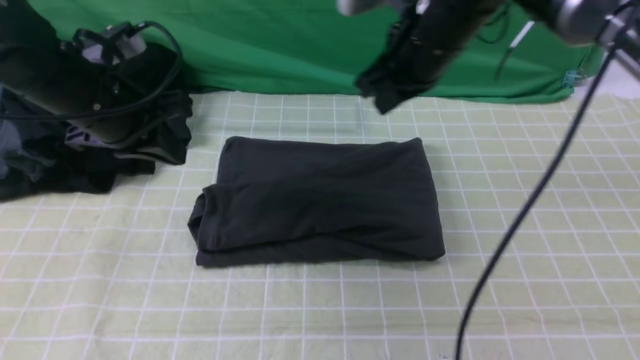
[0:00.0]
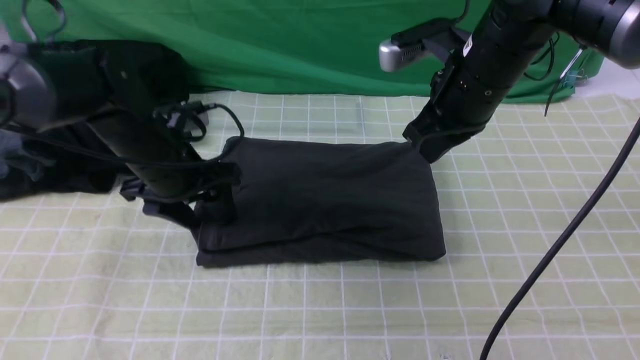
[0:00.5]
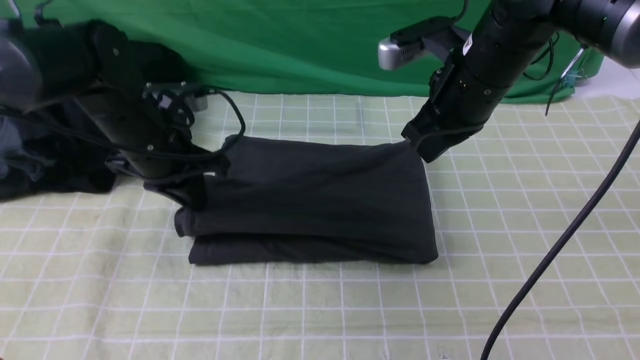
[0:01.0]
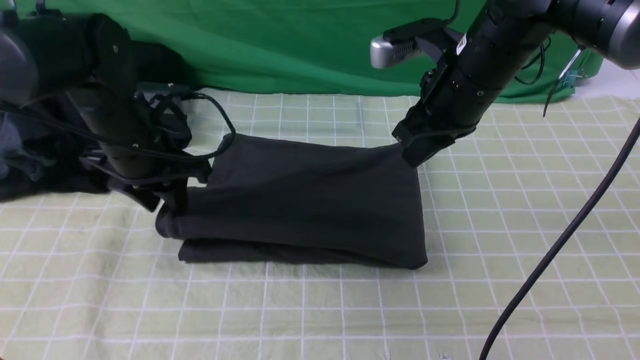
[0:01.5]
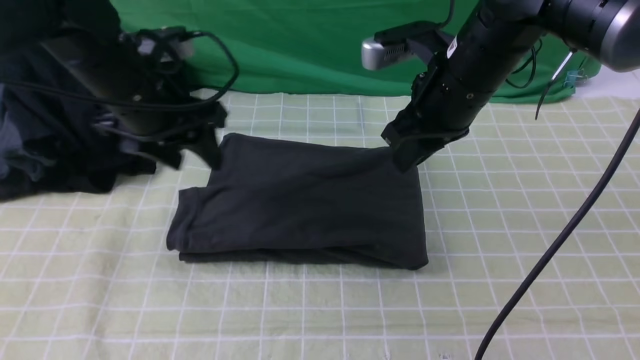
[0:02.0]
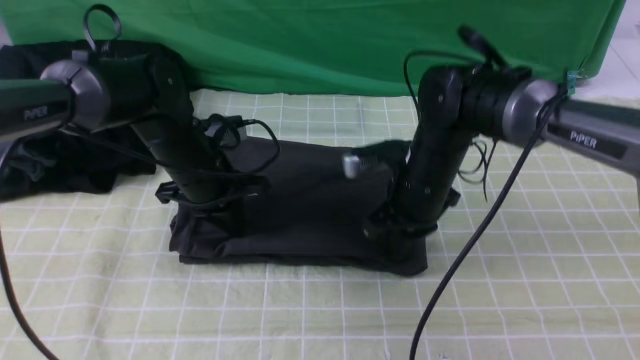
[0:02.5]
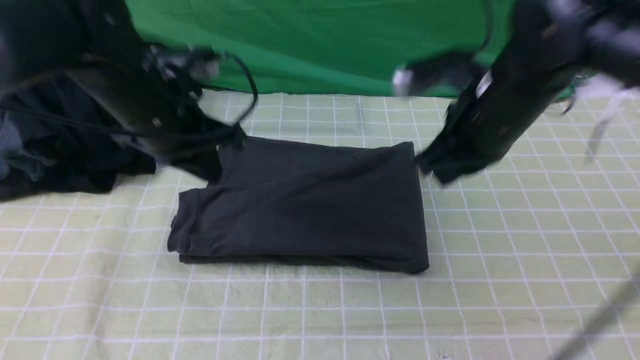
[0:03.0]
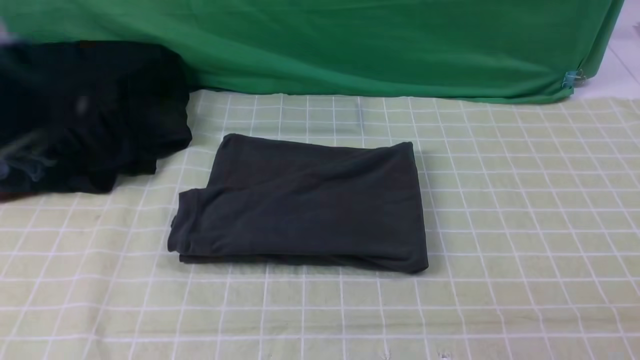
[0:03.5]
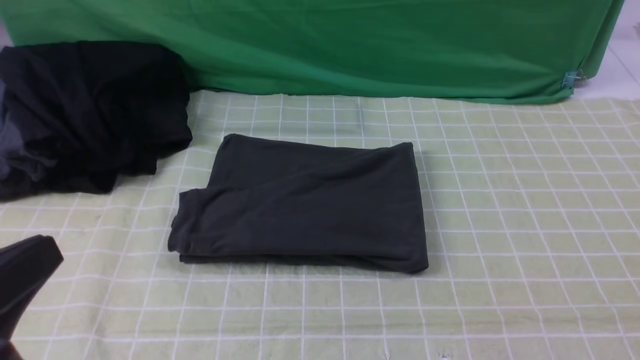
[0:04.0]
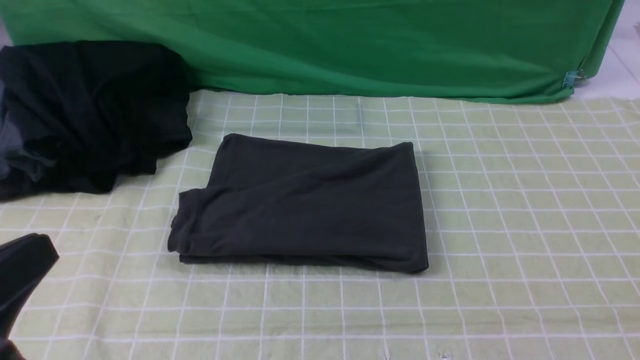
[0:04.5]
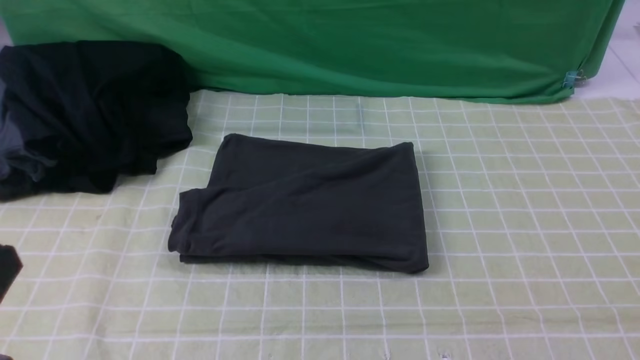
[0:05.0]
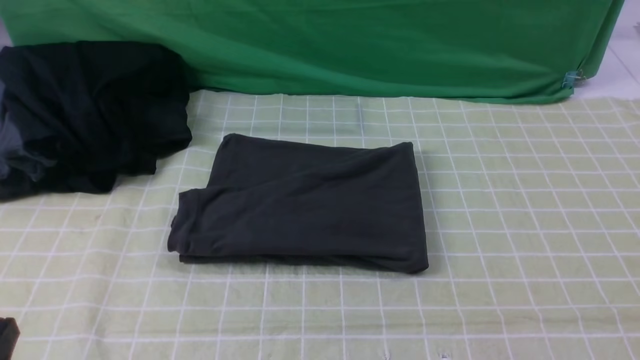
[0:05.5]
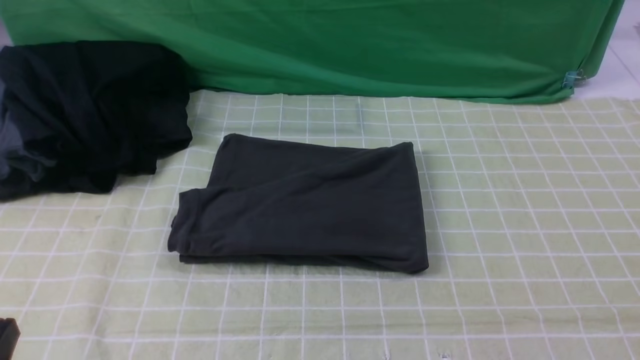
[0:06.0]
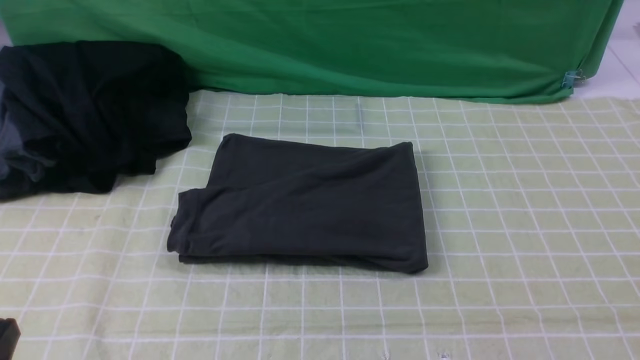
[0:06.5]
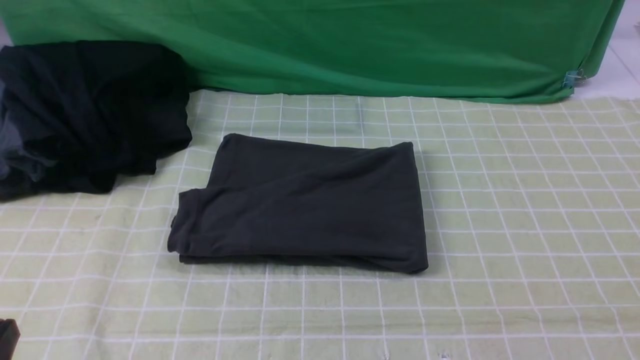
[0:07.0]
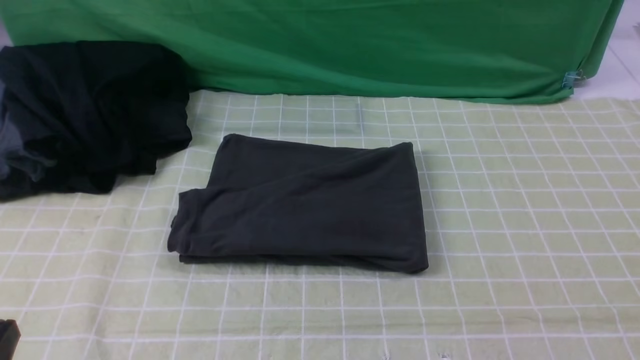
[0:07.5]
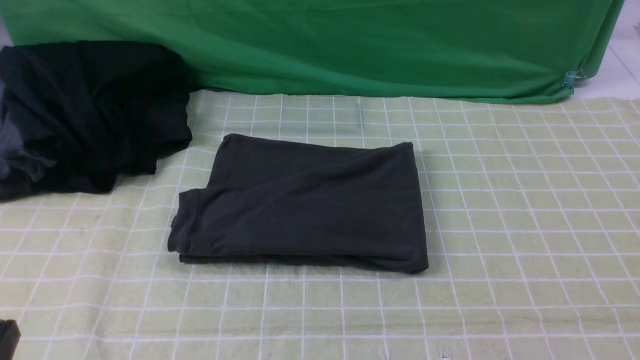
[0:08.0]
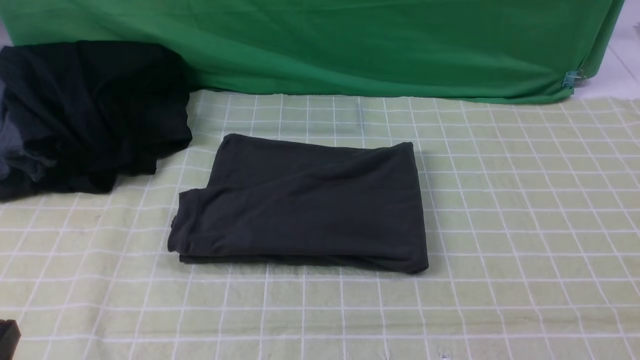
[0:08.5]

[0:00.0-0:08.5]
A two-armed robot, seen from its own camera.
0:00.0 to 0:02.0: The left gripper opens its fingers.
0:02.0 to 0:04.0: The left gripper moves backward, about 30 cm, and closes its fingers. Meanwhile the right gripper moves backward and to the right, about 40 cm.
0:04.0 to 0:06.5: The left gripper heads downward, covering about 10 cm.
